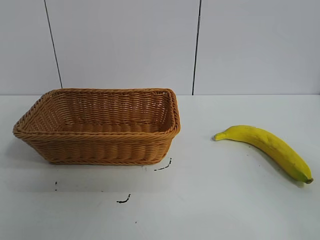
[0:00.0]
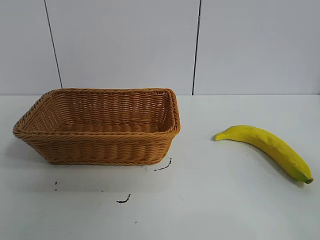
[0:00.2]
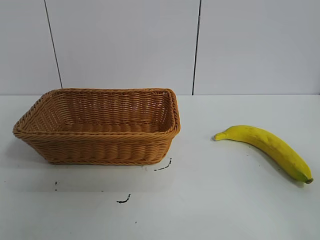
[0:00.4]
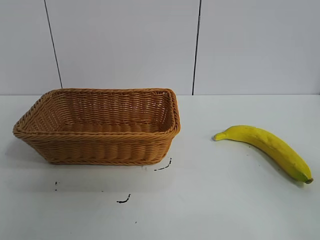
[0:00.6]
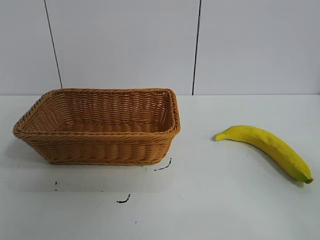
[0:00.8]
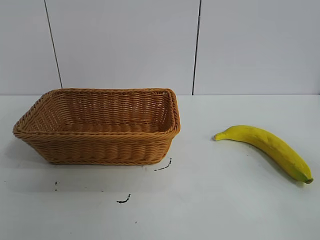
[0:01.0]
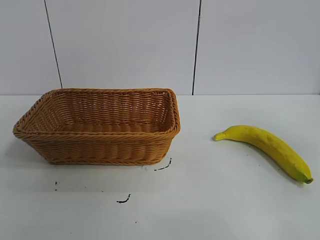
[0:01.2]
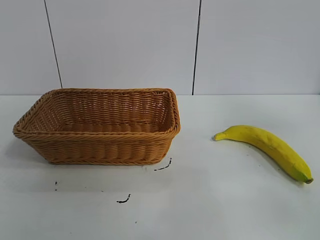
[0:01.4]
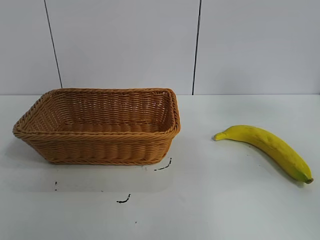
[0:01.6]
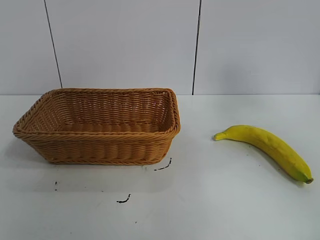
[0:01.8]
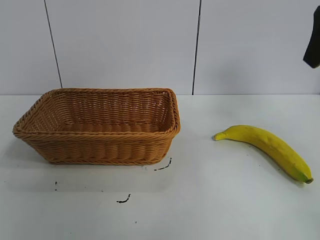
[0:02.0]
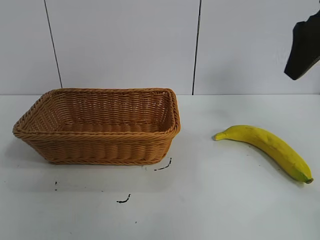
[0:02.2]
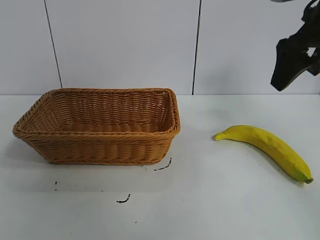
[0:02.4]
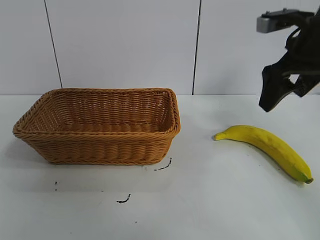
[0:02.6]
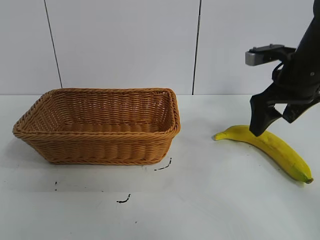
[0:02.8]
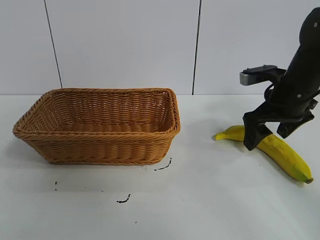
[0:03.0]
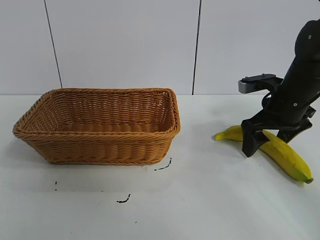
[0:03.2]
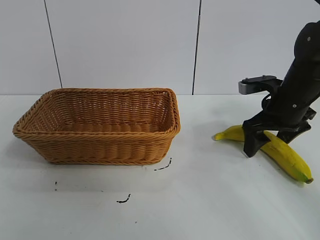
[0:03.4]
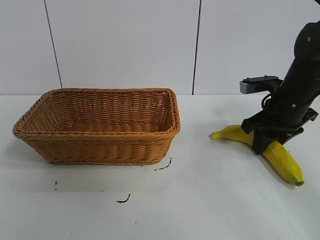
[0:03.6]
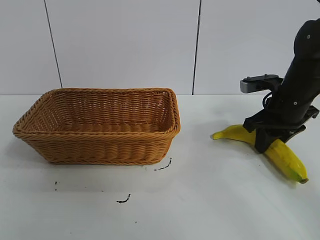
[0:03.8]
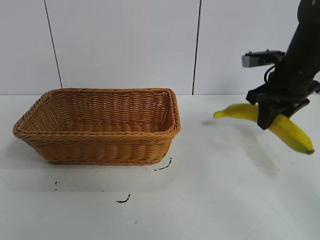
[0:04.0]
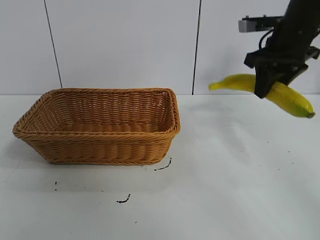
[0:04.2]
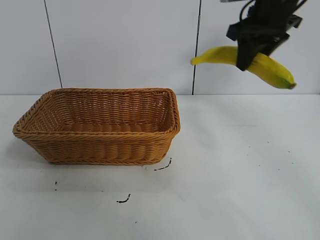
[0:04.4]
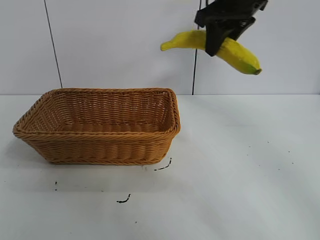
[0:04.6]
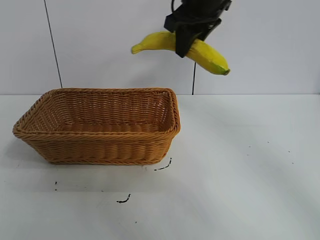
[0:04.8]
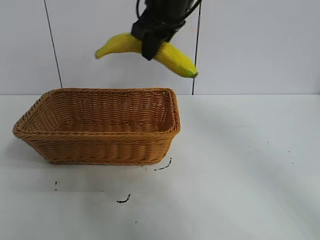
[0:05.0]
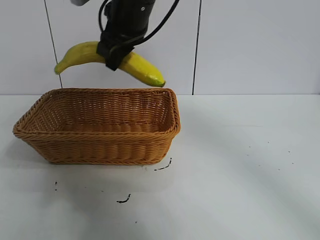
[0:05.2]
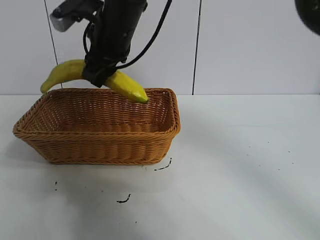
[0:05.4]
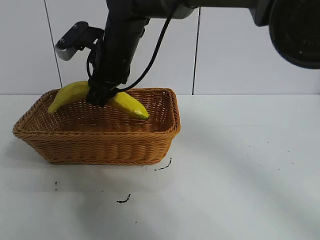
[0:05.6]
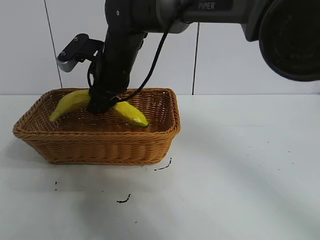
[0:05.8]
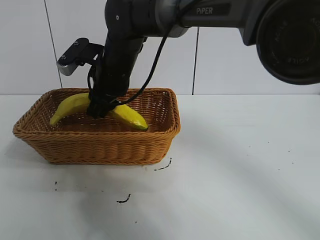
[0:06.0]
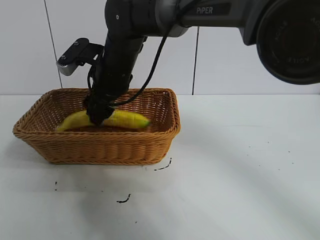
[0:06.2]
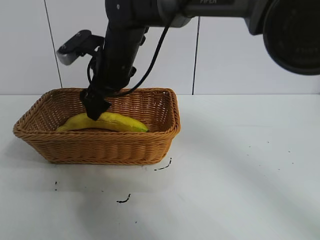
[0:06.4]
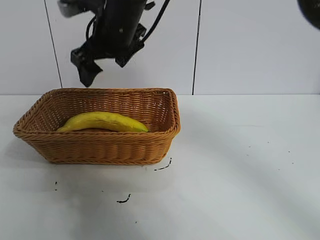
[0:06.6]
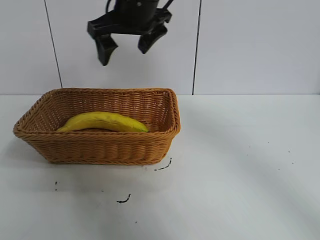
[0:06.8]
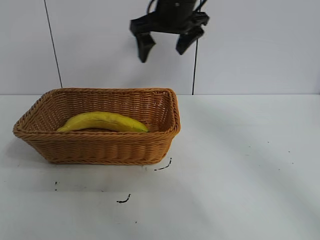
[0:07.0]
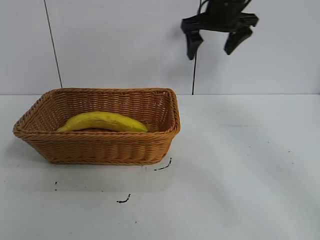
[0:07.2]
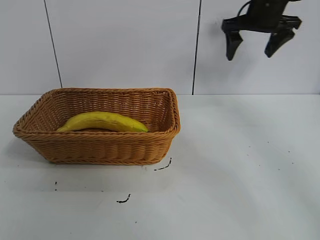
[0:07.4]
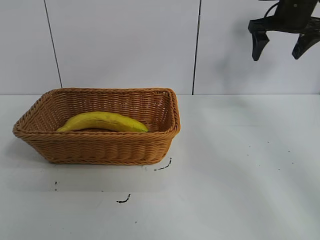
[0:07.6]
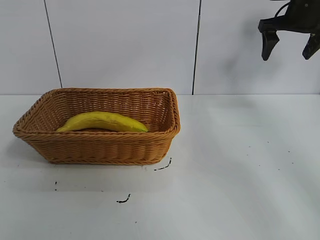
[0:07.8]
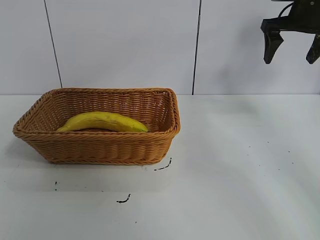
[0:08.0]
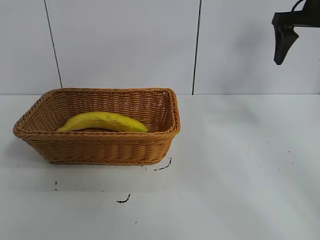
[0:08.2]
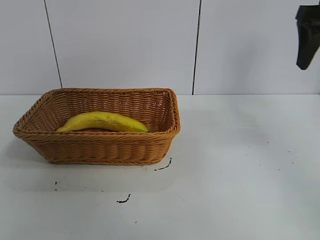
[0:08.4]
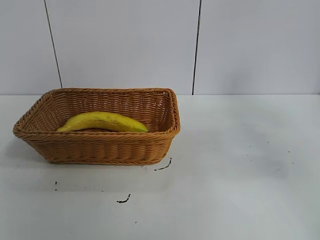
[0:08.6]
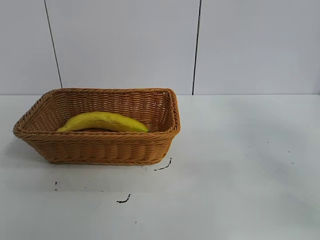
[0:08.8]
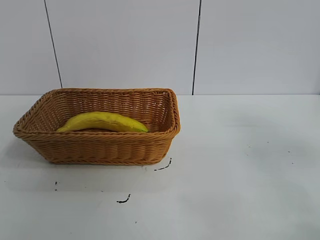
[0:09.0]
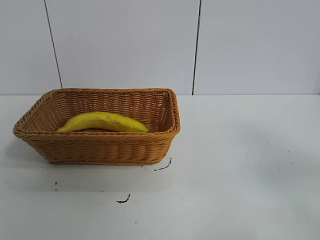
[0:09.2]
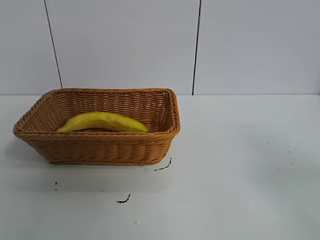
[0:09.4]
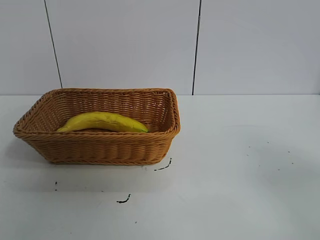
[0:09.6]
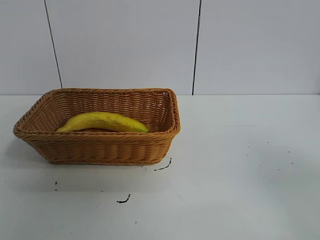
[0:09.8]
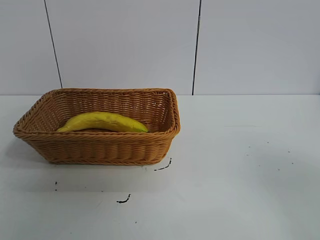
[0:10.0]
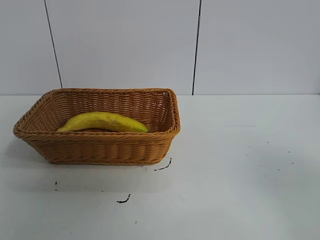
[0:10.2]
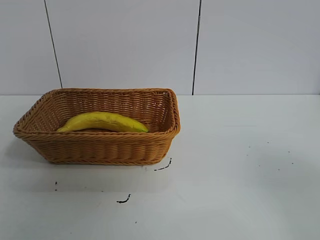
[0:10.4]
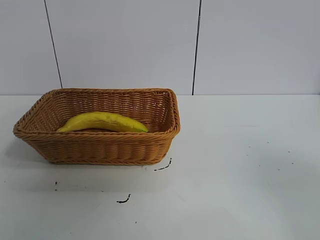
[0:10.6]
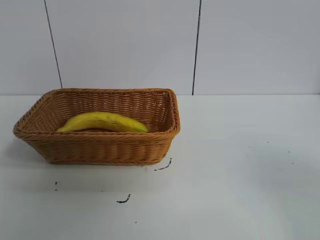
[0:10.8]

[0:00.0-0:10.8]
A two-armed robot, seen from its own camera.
Task of the whole recording: pick up the banana and put it into the basket.
Step, 0:00.8 to 0:03.4: Grasp the banana with right gripper.
Step, 0:03.8 to 0:06.2: Place the banana in the basket with right gripper.
